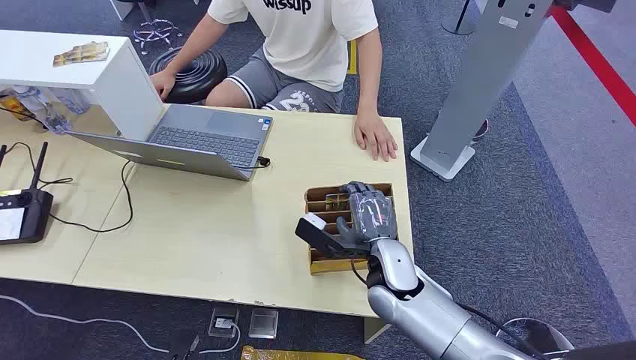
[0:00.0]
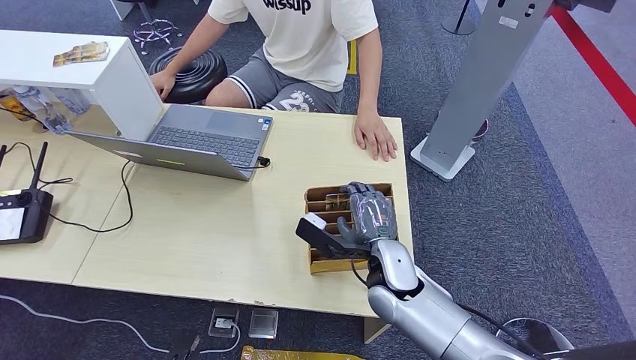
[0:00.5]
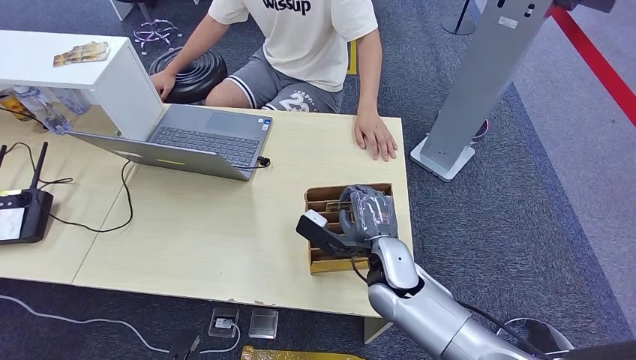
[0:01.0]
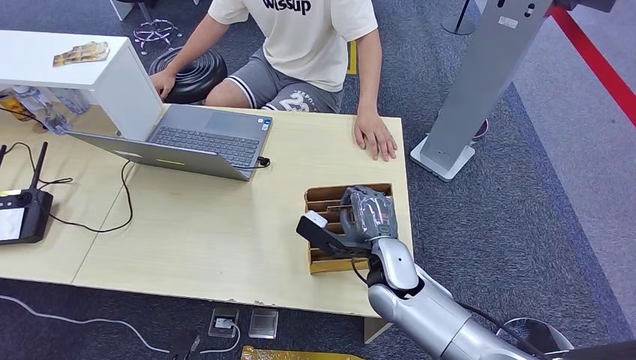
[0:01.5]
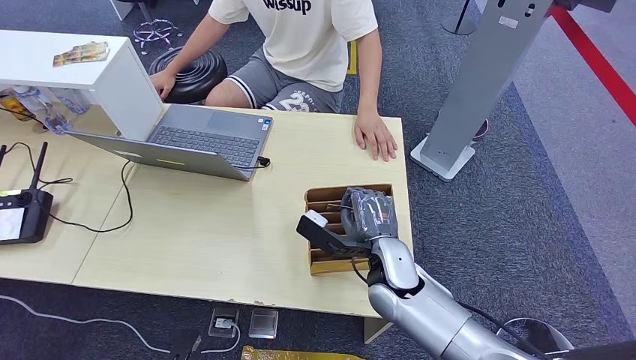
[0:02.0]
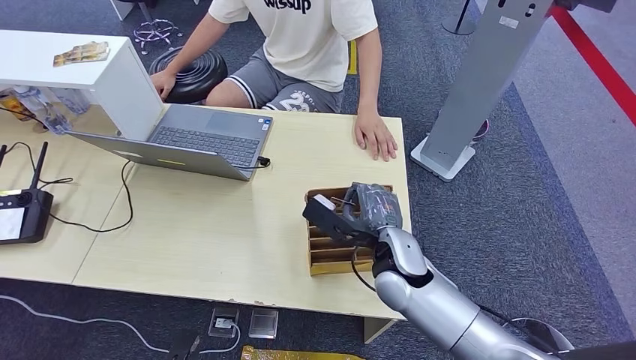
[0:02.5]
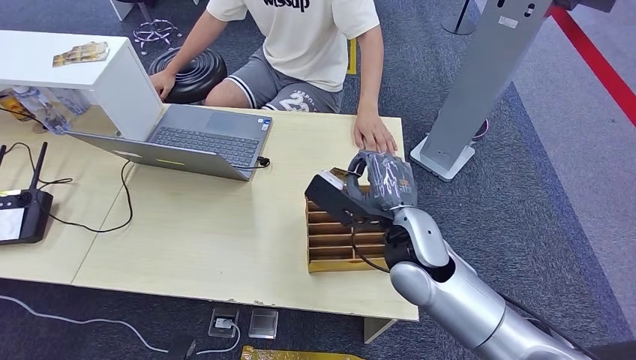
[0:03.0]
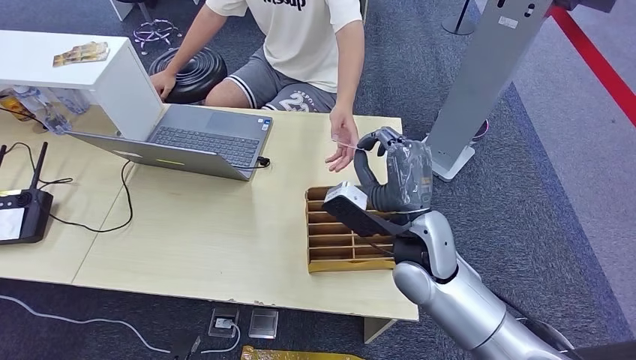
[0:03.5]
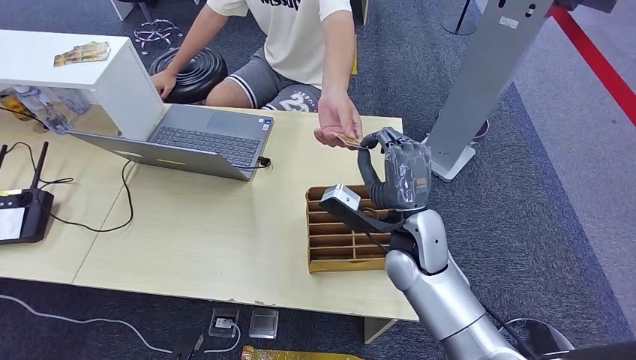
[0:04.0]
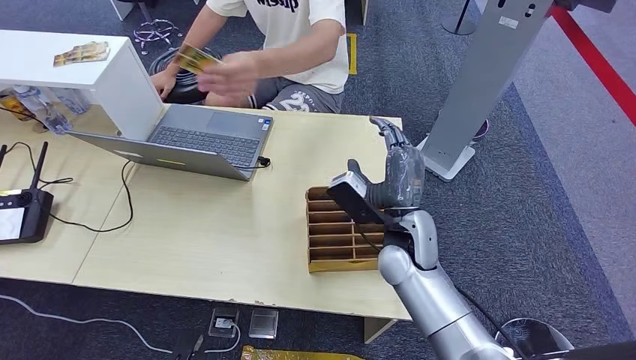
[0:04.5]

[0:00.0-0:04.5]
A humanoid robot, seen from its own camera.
Step, 0:00.0 to 0:02.5: Pick up the key card from the card box.
Step, 0:03.0 to 0:04.5: Hand the key card to the target.
